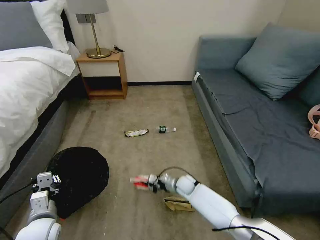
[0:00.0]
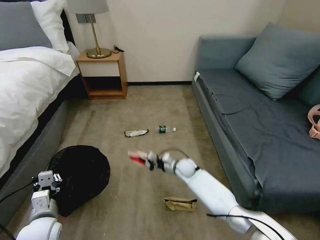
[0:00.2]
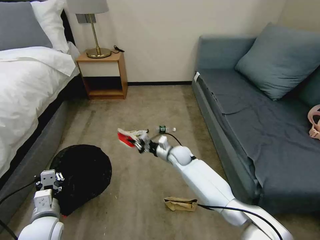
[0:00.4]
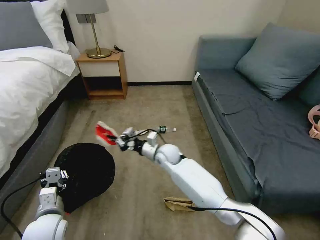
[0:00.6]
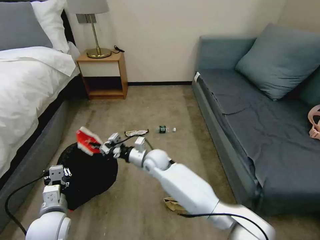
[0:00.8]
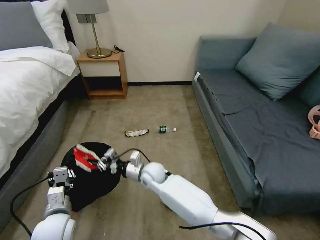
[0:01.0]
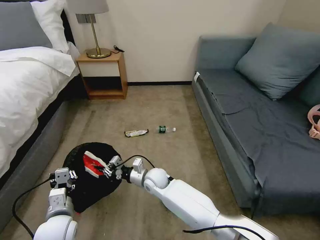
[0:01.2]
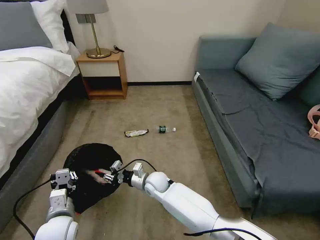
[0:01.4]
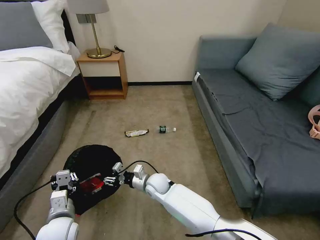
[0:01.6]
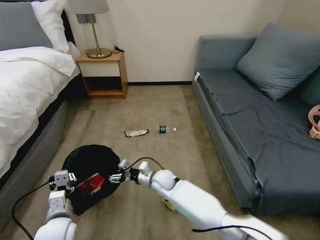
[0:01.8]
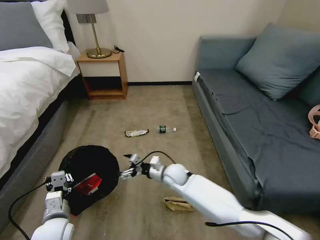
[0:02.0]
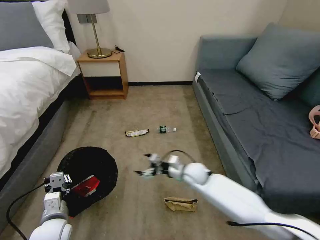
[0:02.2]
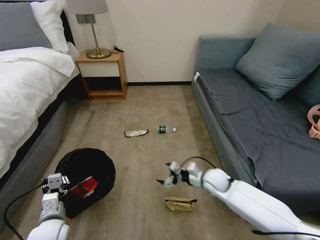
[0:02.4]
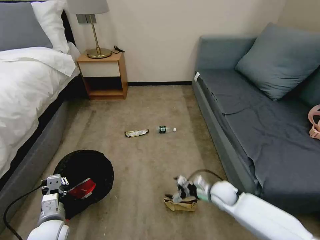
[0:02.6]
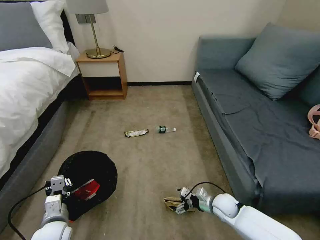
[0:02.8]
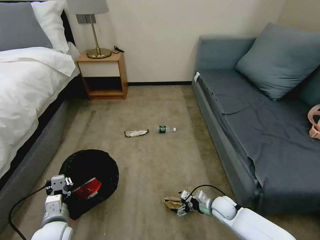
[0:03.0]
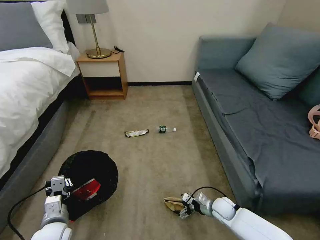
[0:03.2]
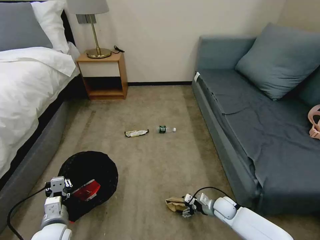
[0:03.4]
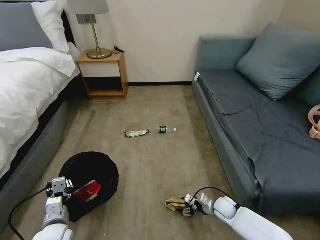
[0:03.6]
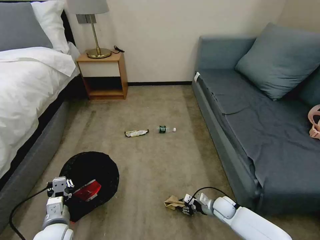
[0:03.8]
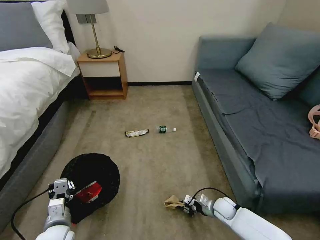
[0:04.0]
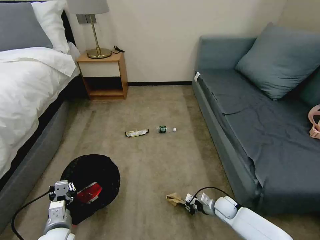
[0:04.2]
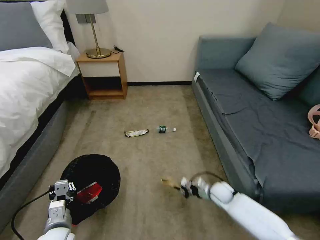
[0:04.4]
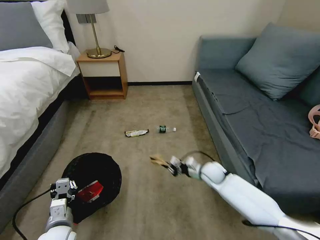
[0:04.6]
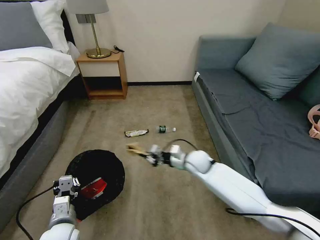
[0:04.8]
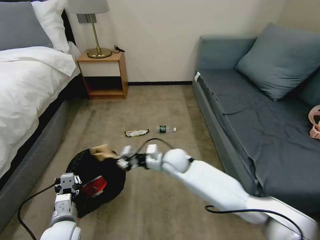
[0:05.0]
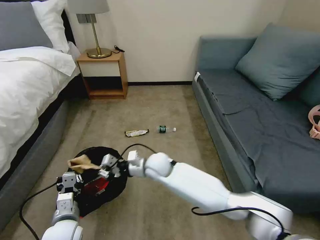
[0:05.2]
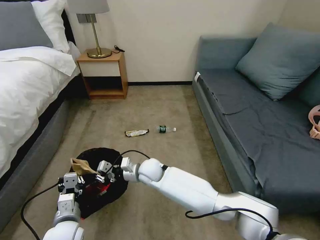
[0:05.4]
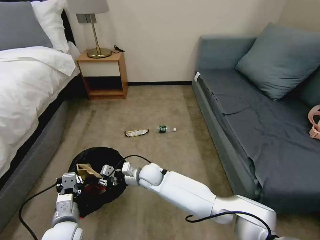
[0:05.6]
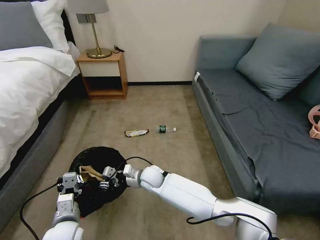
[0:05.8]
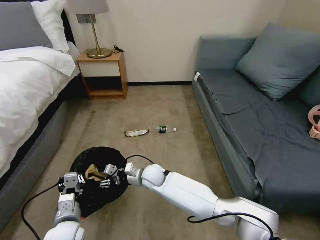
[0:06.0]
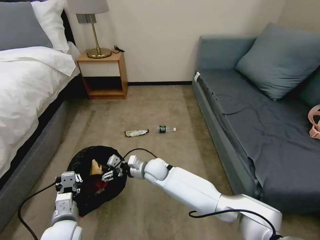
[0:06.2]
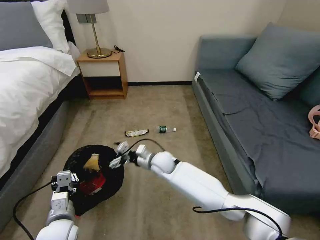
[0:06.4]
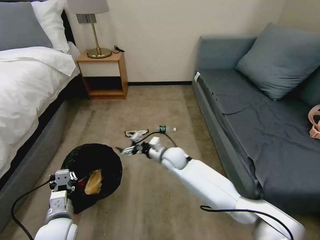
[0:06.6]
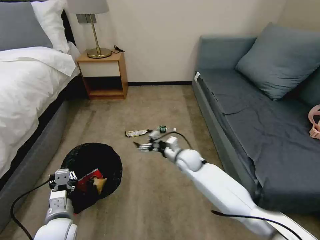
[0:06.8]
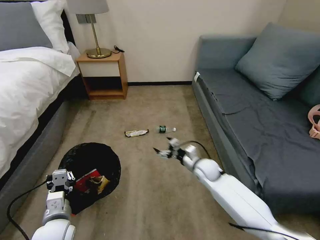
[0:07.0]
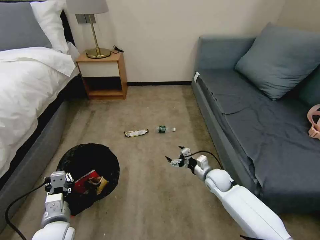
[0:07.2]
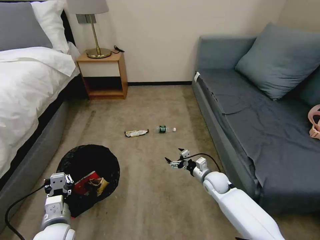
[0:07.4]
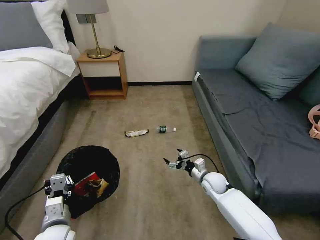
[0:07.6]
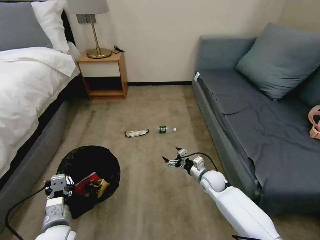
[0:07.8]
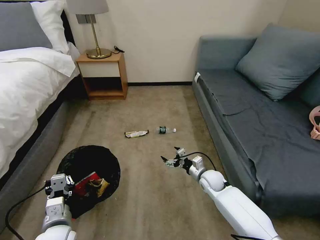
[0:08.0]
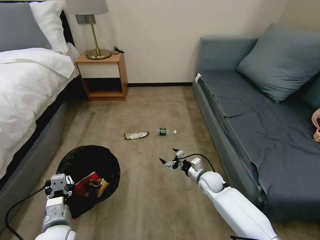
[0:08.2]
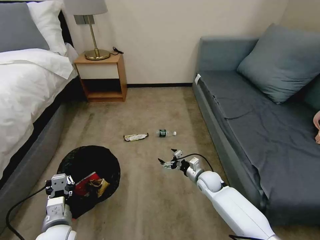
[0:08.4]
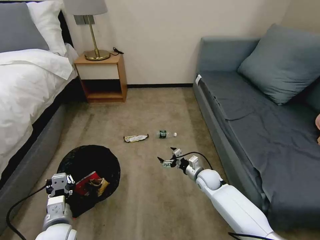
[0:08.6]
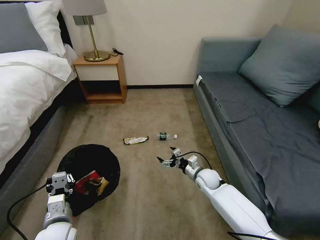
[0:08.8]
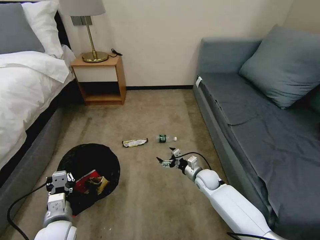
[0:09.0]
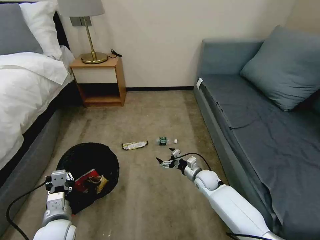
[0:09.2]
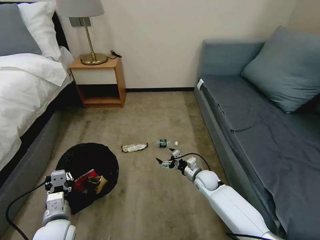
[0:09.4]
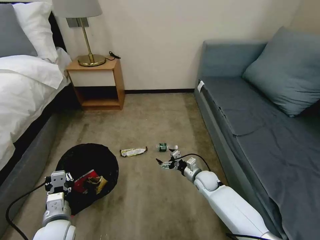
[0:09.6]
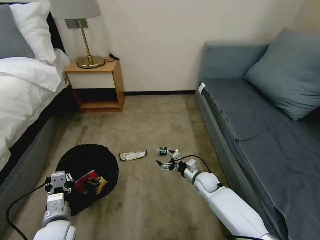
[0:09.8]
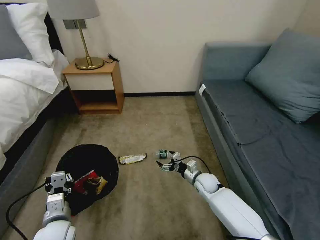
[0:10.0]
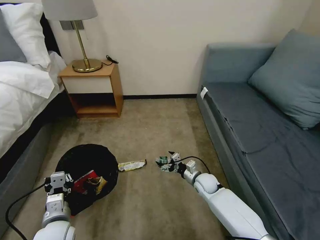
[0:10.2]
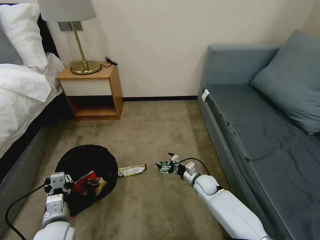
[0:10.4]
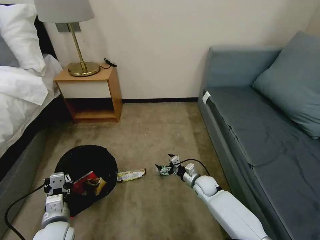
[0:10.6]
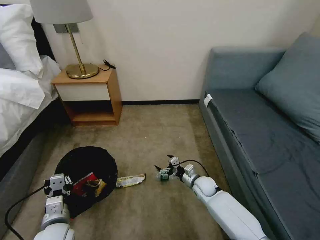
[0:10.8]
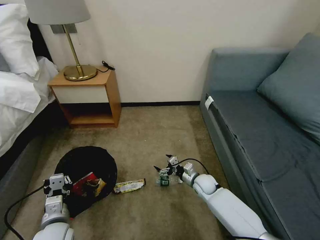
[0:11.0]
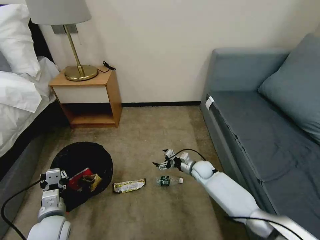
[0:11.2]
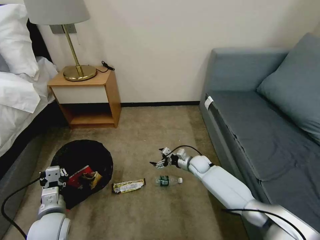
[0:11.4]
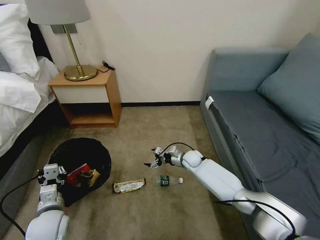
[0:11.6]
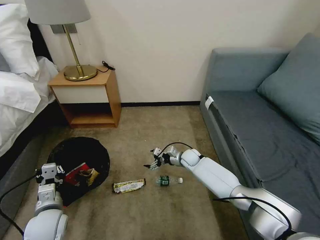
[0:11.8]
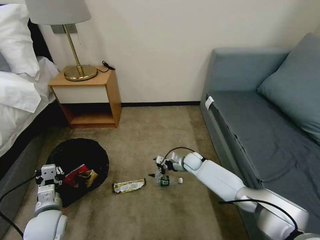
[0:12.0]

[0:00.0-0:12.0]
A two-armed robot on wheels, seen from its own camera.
Task of the whole recording: Pick up the trash bin, then pick up the garbage on the floor and place it into the trash bin.
0:00.0 to 0:01.6: The left gripper heads to the right, covering approximately 5 cm. The right gripper moves to the left and upward, some 15 cm, and opens its fingers.
0:01.6 to 0:03.0: The right gripper shifts approximately 30 cm to the right, and opens its fingers.
0:03.0 to 0:04.4: The right gripper closes its fingers.
0:04.4 to 0:06.0: The right gripper heads to the left, covering some 30 cm, and opens its fingers.
0:06.0 to 0:07.6: The right gripper shifts roughly 25 cm to the right, and opens.
0:10.4 to 0:12.0: The right gripper shifts about 10 cm forward.

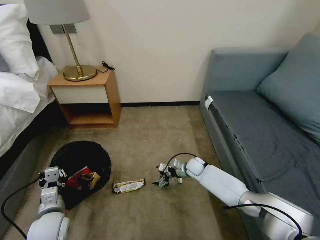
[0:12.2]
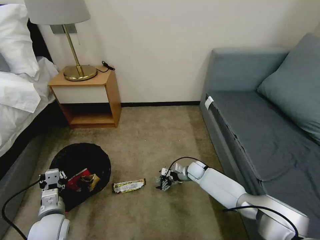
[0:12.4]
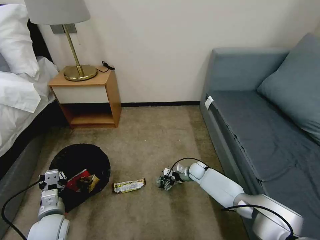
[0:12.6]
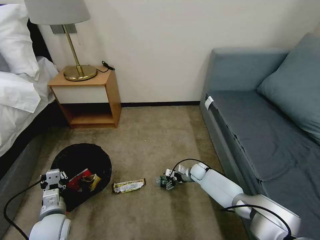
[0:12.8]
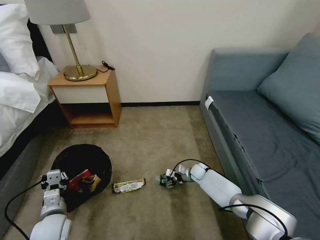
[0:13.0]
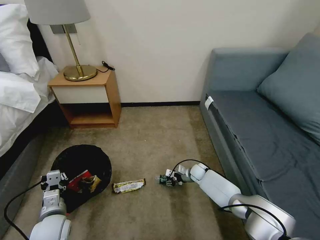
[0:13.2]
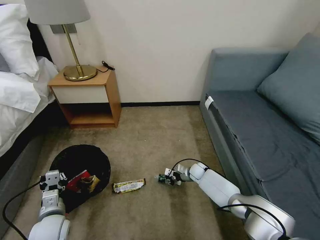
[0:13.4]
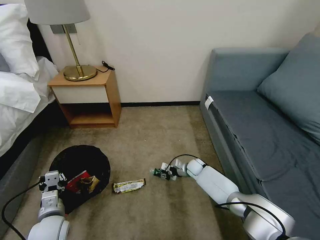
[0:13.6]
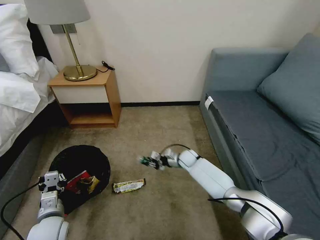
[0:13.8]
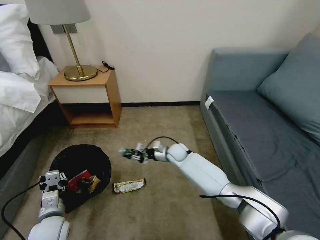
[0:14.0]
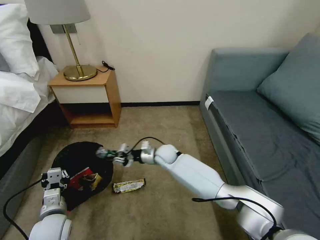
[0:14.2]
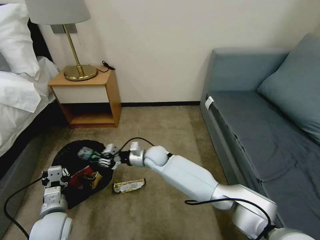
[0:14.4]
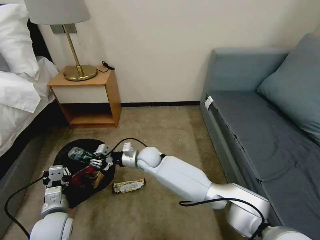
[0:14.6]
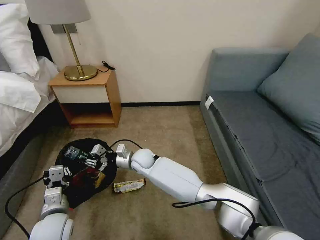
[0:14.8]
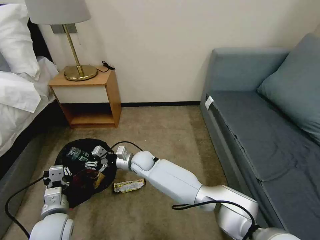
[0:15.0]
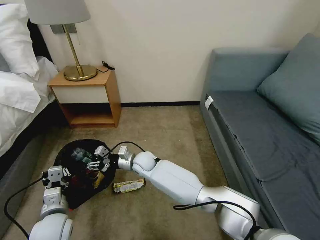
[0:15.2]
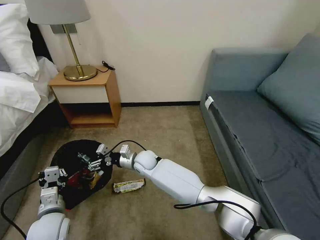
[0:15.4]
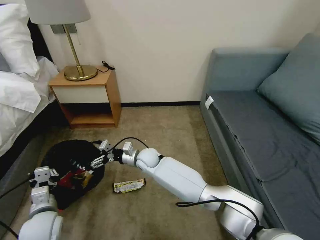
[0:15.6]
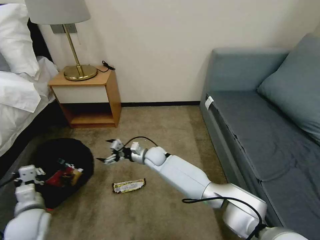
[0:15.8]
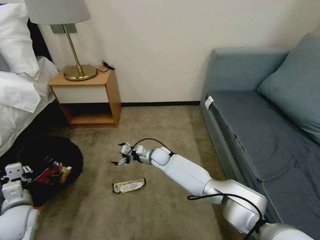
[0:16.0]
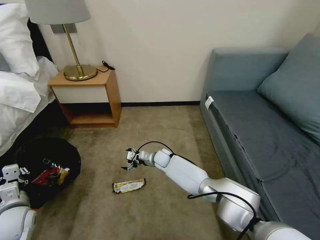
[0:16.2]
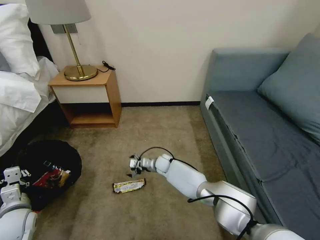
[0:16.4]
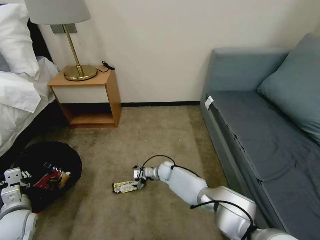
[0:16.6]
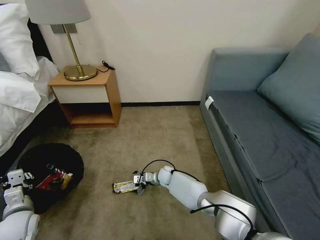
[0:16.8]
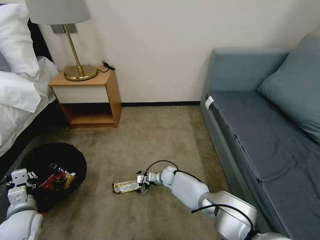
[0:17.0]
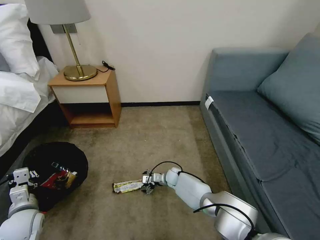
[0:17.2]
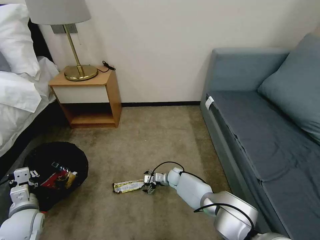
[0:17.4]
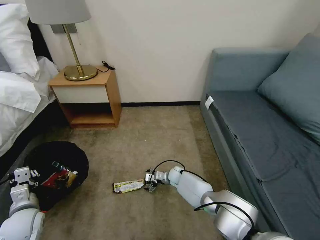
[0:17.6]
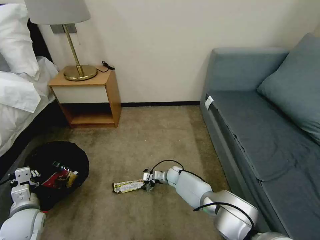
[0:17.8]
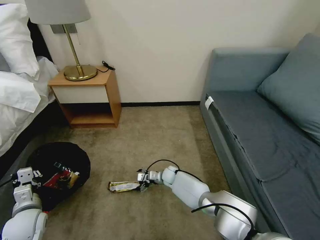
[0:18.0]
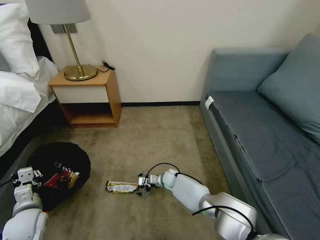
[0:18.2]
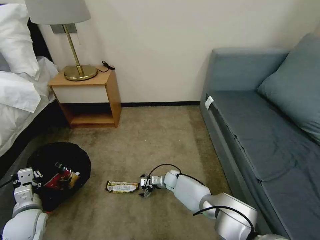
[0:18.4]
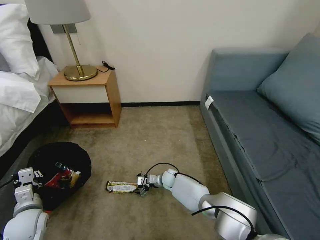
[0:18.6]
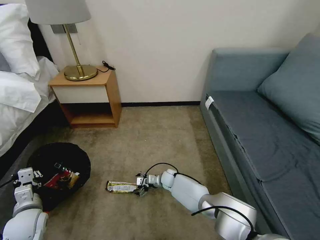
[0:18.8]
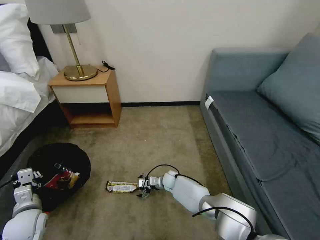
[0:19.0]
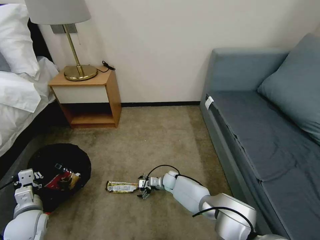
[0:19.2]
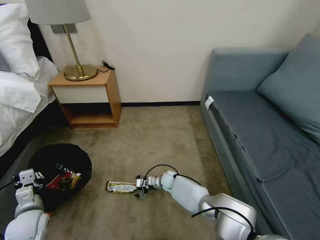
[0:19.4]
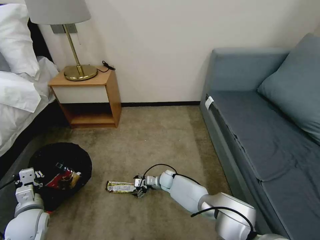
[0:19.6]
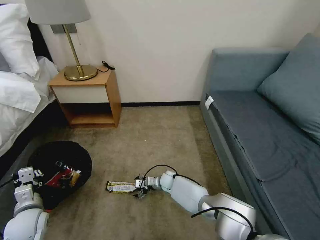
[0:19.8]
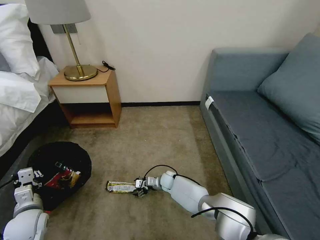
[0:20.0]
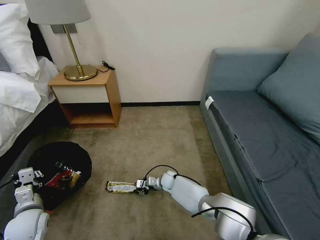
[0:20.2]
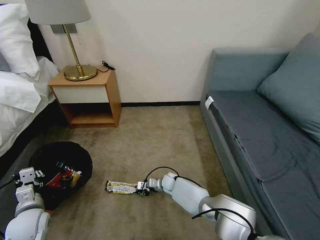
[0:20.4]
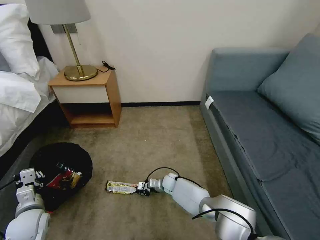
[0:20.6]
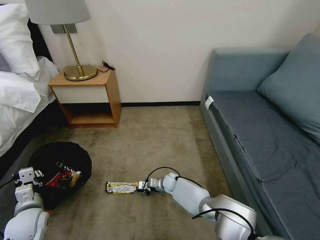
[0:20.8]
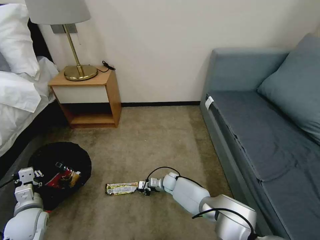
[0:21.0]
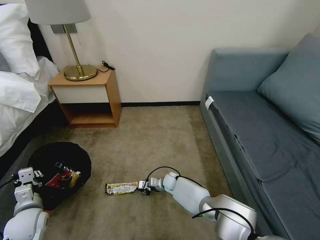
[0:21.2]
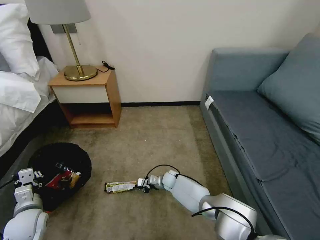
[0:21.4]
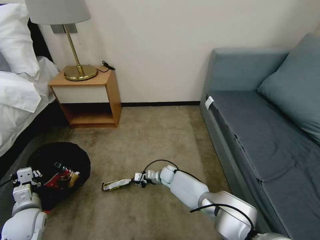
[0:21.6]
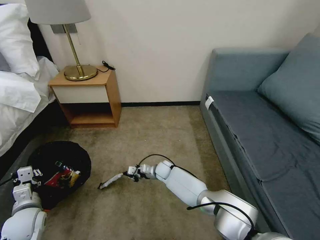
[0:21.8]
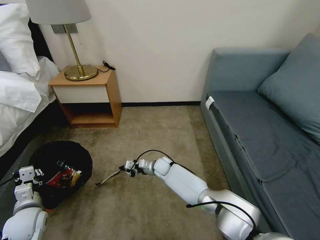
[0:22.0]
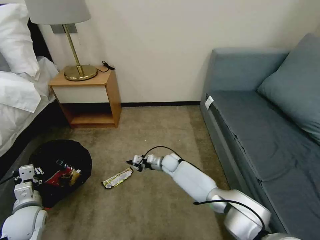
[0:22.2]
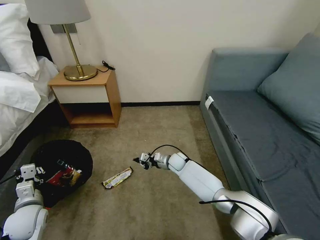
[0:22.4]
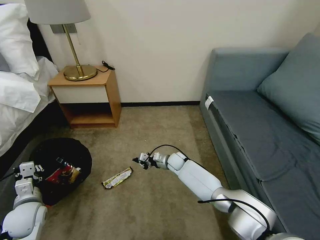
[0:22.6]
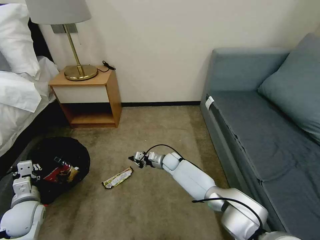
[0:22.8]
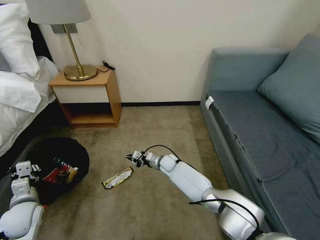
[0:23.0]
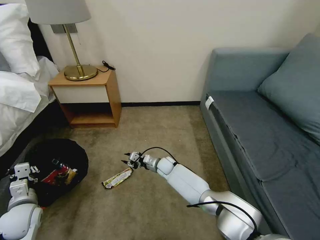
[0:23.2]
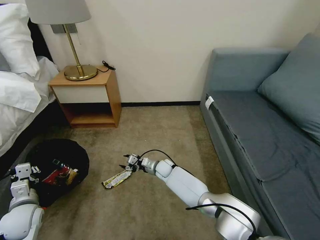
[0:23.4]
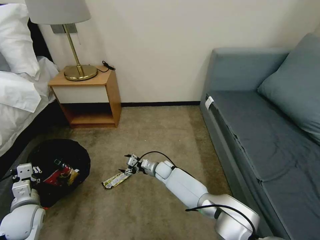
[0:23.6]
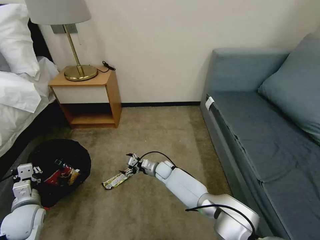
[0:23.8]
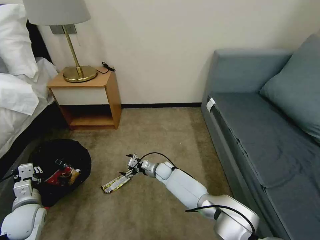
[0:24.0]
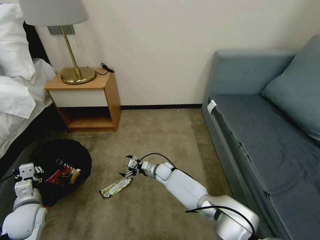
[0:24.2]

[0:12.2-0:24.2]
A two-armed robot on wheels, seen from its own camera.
Task of the whole recording: Pick up the trash bin, then pick up the garbage on the floor and place it into the trash bin.
0:12.2 to 0:13.8: The right gripper closes up.
0:13.8 to 0:15.2: The right gripper travels to the left and upward by some 25 cm, and opens its fingers.
0:15.2 to 0:16.6: The right gripper travels downward and to the right by about 15 cm, and opens its fingers; the left gripper goes roughly 10 cm to the left.
0:18.2 to 0:19.8: The grippers make only small movements.
0:19.8 to 0:21.2: The right gripper closes its fingers.
0:21.2 to 0:22.6: The right gripper moves upward and forward, roughly 10 cm.
0:22.6 to 0:24.2: The right gripper shifts some 5 cm to the left, and opens its fingers.
